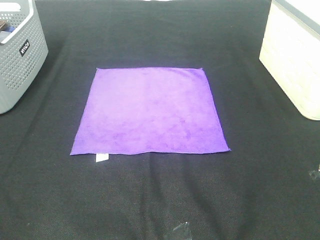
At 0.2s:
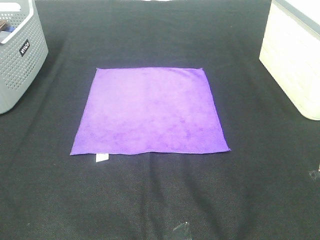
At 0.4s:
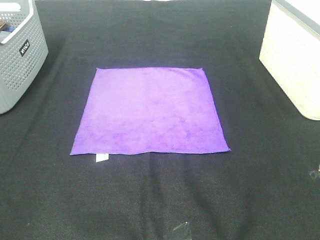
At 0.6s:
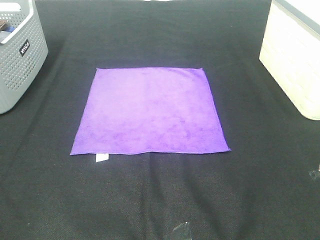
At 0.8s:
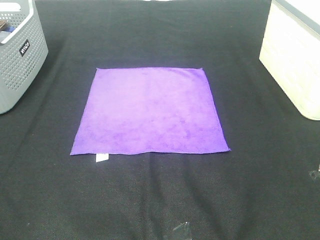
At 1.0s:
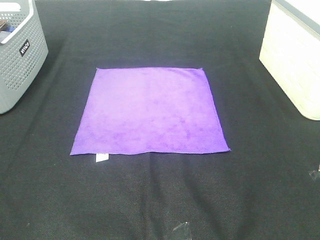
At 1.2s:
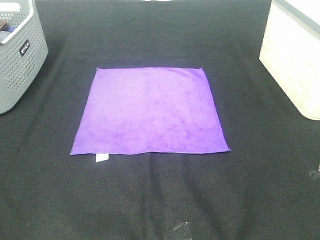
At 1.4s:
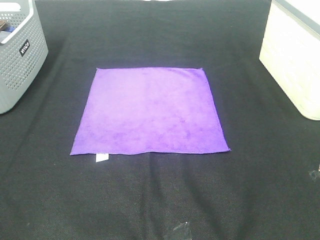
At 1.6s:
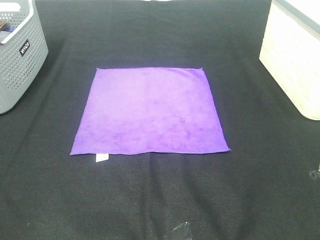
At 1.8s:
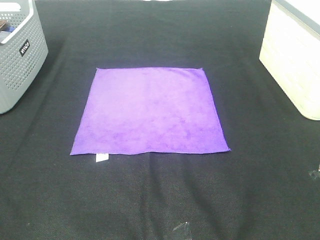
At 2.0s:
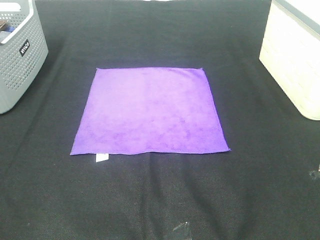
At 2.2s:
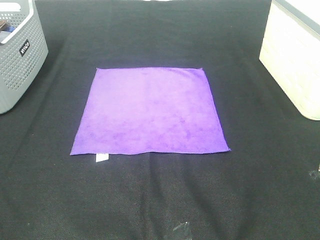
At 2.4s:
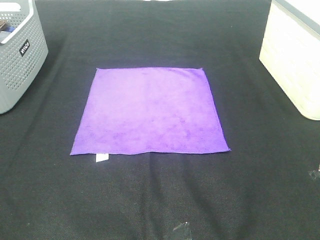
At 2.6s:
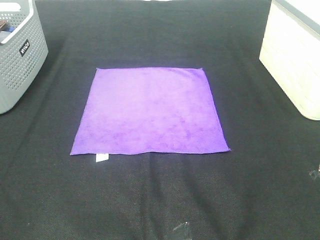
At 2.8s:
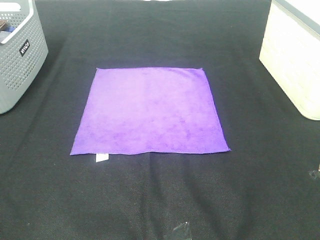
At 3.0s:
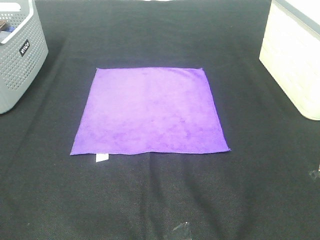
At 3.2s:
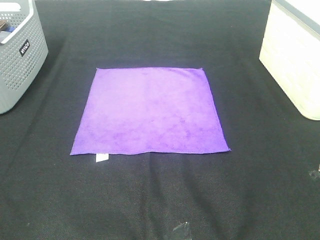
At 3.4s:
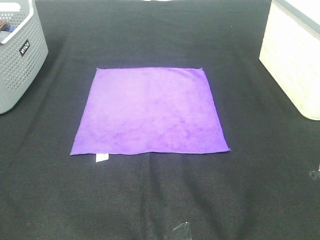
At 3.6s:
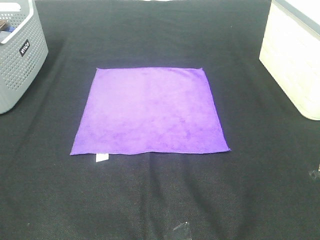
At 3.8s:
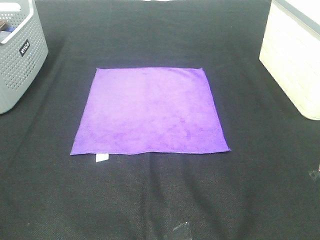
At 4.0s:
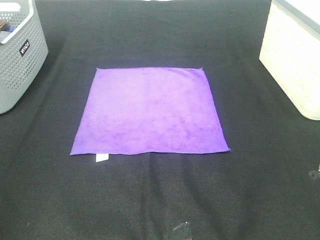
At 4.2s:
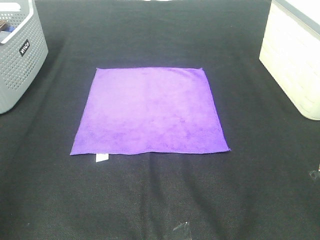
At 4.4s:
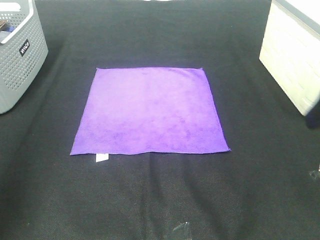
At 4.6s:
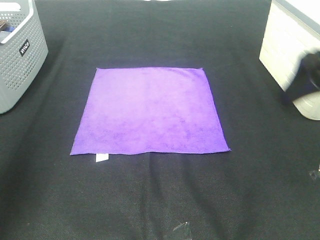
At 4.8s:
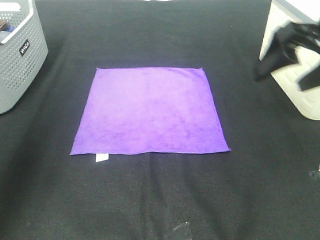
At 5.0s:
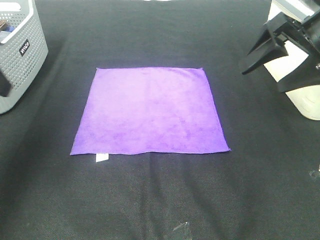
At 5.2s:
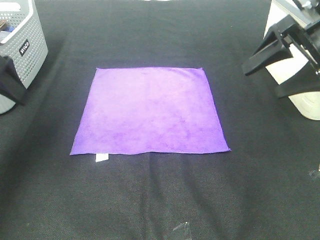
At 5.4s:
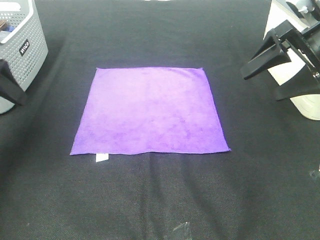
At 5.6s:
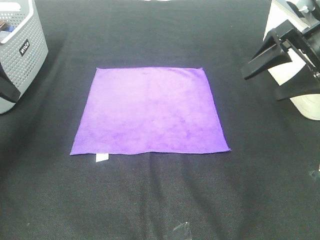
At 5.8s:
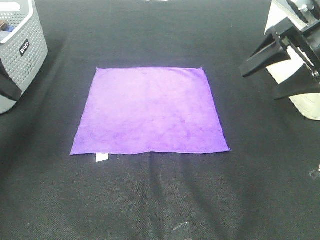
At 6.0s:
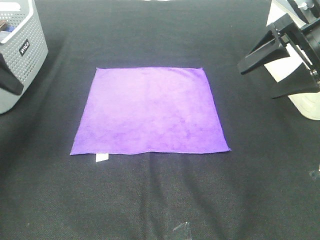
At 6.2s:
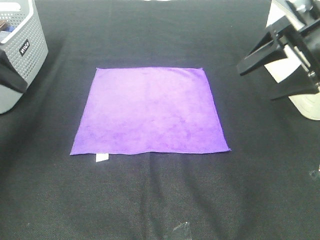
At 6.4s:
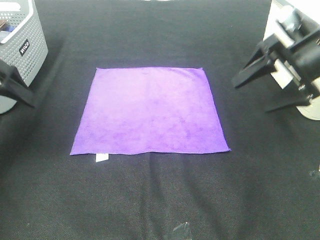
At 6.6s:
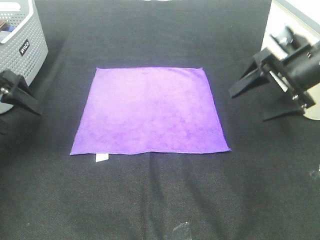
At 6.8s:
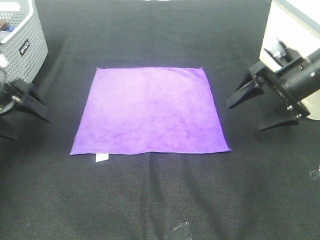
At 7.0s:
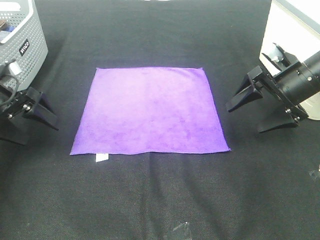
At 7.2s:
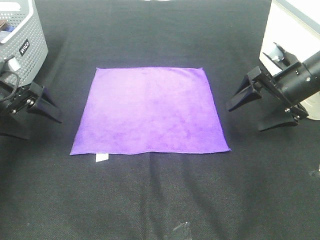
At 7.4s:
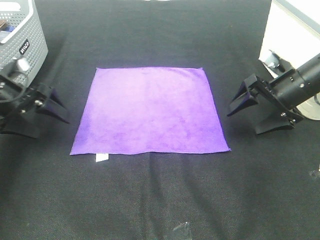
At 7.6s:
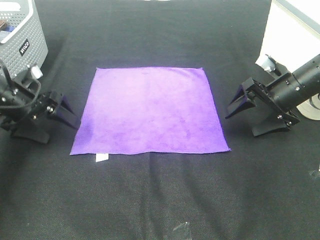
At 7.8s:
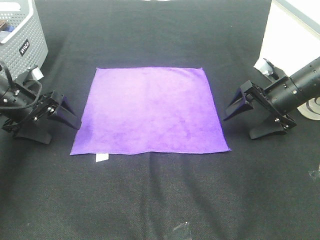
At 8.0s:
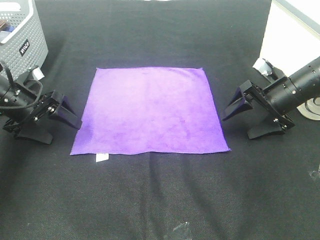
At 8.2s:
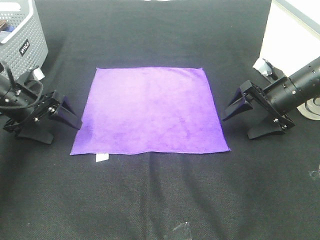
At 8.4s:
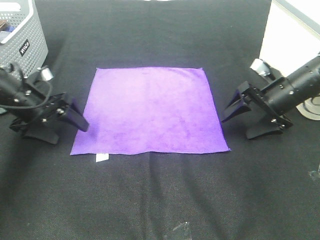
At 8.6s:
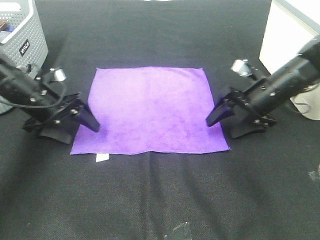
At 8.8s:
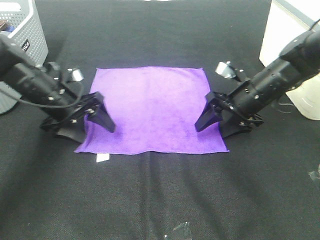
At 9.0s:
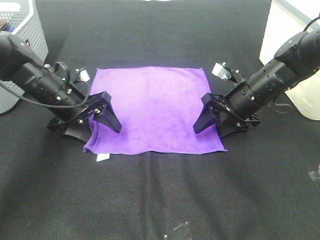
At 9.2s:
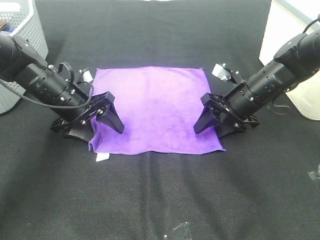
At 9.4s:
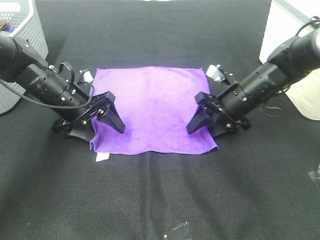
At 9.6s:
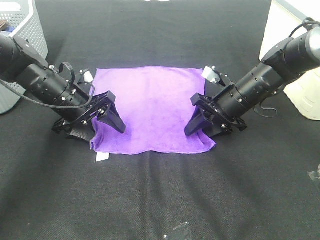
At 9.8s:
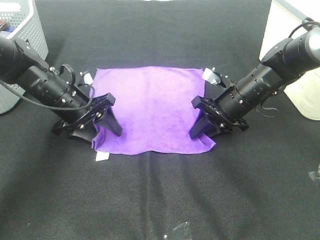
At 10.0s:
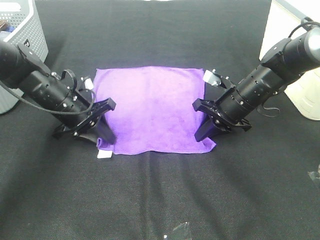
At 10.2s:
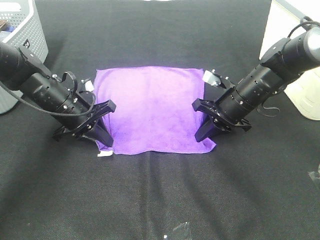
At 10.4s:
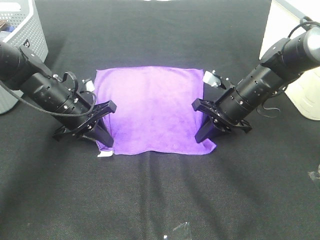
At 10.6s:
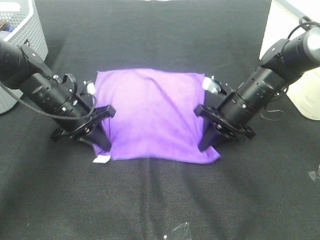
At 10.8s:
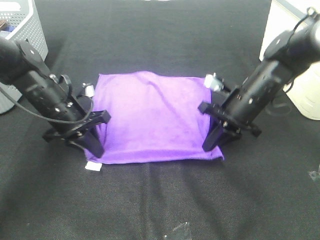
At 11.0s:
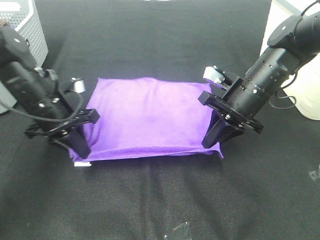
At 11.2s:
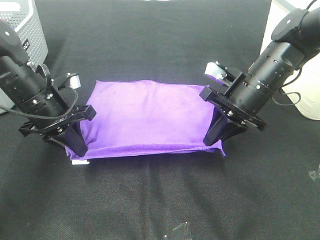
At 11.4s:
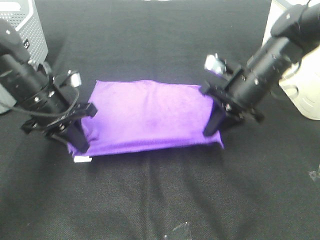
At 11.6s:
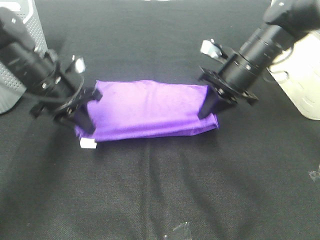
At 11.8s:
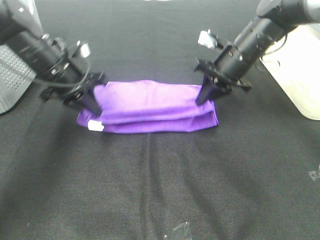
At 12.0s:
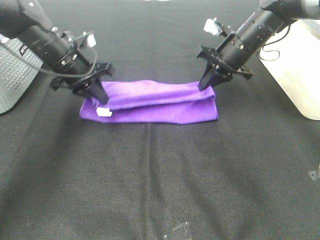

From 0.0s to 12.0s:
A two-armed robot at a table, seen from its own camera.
Task of the whole recording: Fold towels.
Step, from 0.0s to 10.2s: Left hand: grab the bottom left corner of purple towel.
Step, from 0.0s to 10.2s: Right hand: grab the bottom right corner of purple towel.
From 0.0s to 3.0s: Neither gripper changes place.
From 3.0s to 4.4s: The two grippers go some 20 cm forward.
From 4.4s to 6.0s: The right gripper heads forward, covering roughly 10 cm; the left gripper goes roughly 15 cm forward and downward.
From 6.0s to 7.6s: The two grippers go some 15 cm downward.
From 7.6s to 9.0s: The right gripper is displaced to the left by approximately 10 cm. The left gripper moves to the right, about 10 cm.
From 9.0s to 10.4s: The left gripper closes up; the right gripper closes.
From 10.4s to 12.0s: The right gripper is displaced forward and upward by some 15 cm. The left gripper goes some 10 cm upward and forward.

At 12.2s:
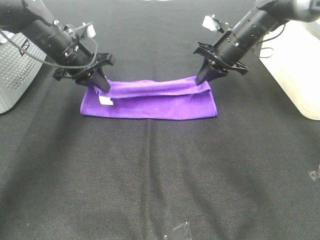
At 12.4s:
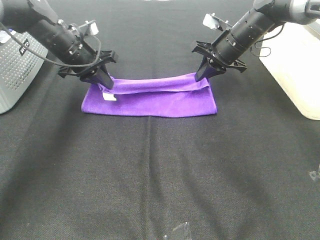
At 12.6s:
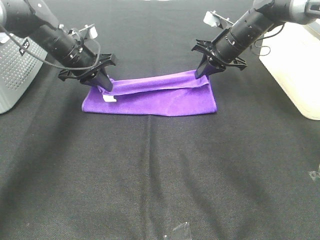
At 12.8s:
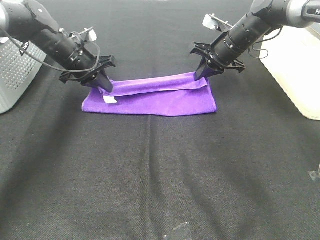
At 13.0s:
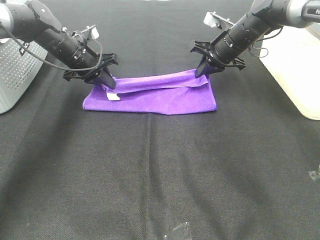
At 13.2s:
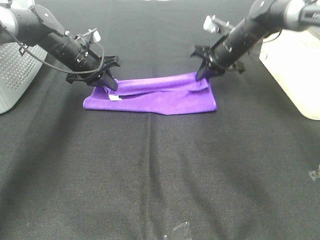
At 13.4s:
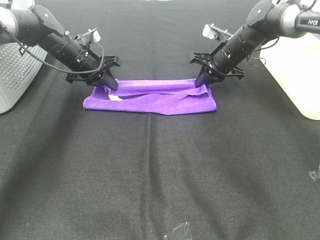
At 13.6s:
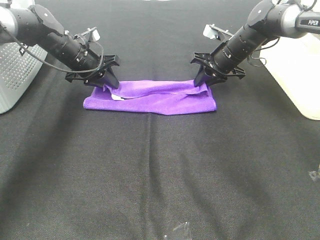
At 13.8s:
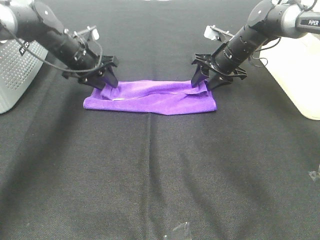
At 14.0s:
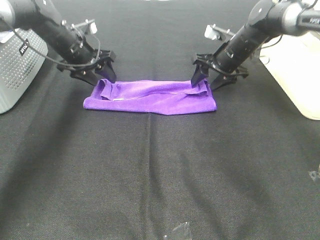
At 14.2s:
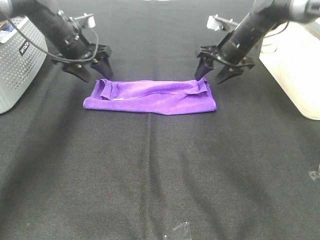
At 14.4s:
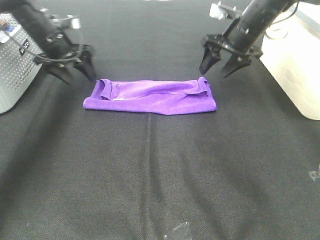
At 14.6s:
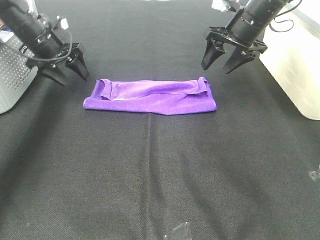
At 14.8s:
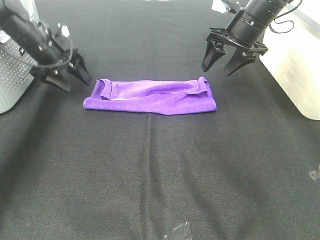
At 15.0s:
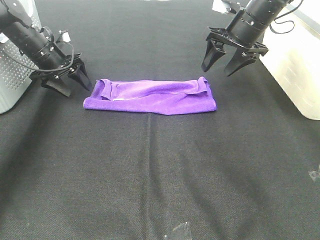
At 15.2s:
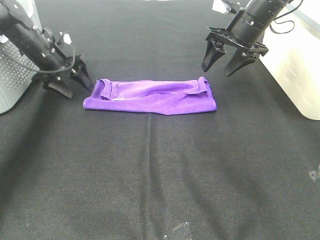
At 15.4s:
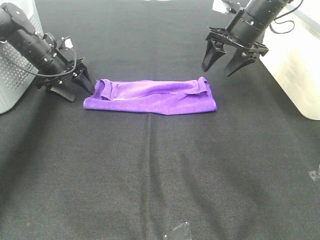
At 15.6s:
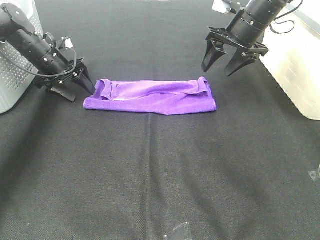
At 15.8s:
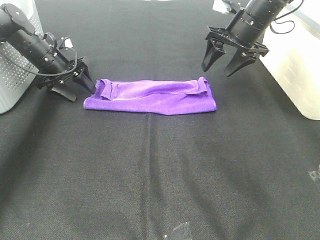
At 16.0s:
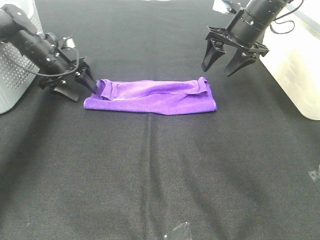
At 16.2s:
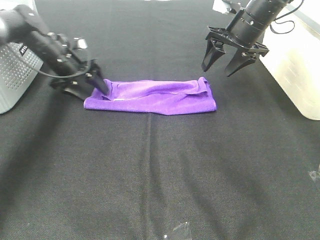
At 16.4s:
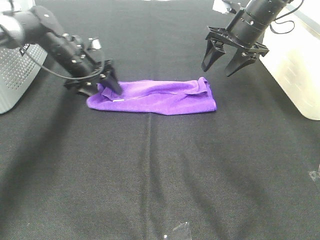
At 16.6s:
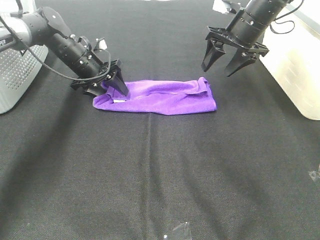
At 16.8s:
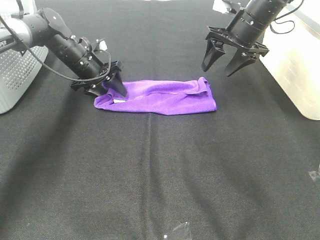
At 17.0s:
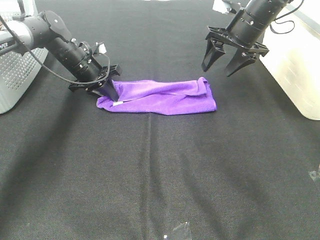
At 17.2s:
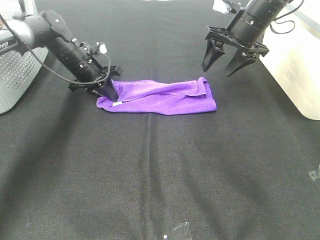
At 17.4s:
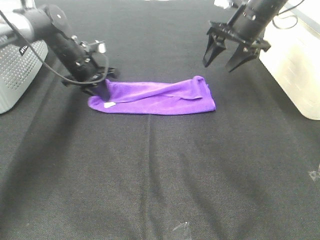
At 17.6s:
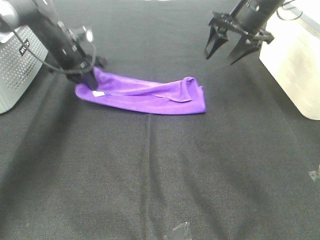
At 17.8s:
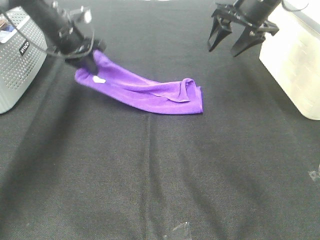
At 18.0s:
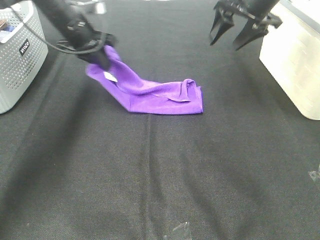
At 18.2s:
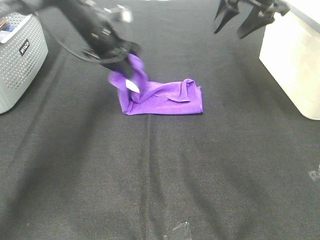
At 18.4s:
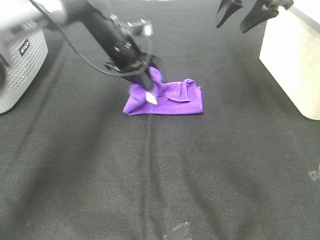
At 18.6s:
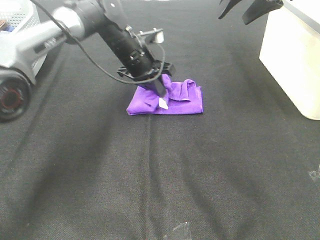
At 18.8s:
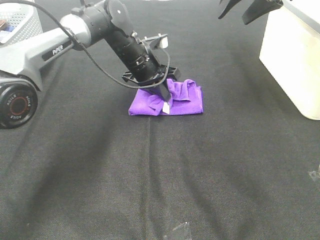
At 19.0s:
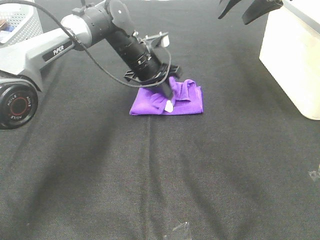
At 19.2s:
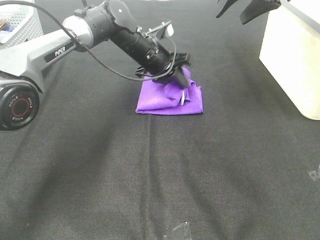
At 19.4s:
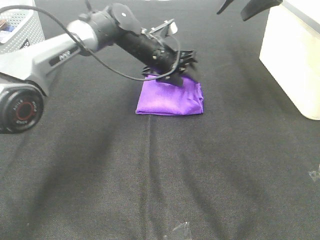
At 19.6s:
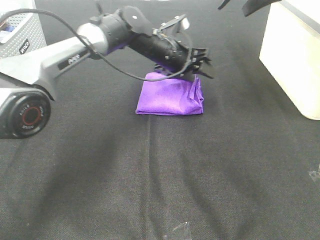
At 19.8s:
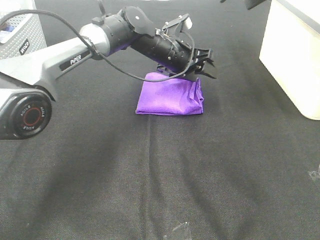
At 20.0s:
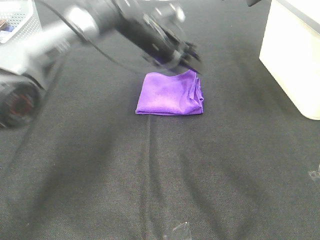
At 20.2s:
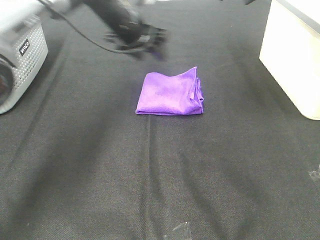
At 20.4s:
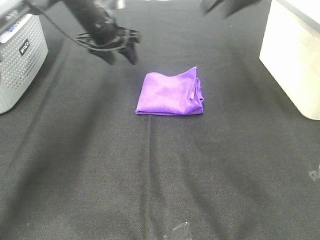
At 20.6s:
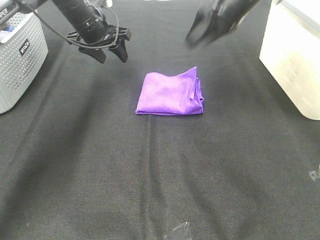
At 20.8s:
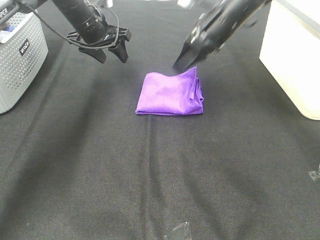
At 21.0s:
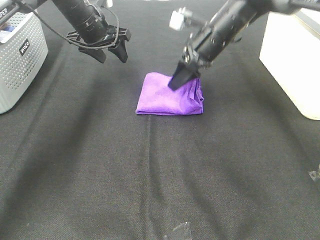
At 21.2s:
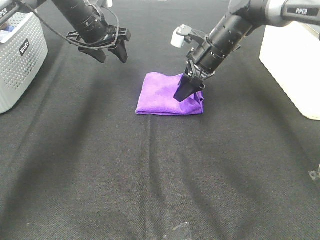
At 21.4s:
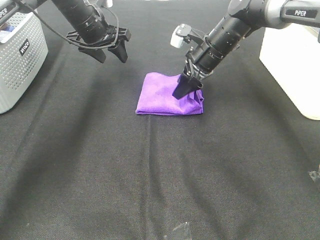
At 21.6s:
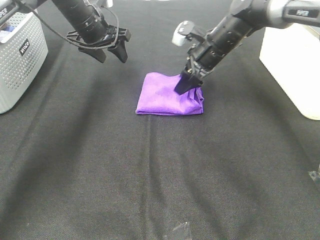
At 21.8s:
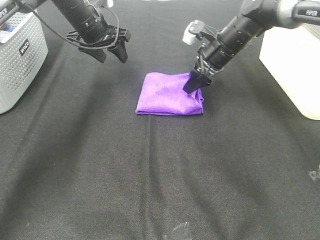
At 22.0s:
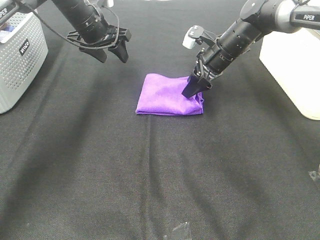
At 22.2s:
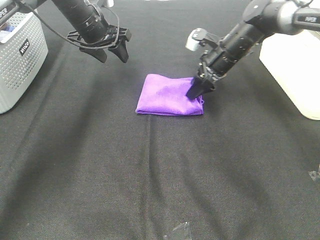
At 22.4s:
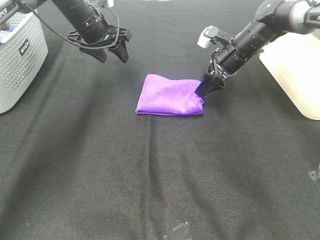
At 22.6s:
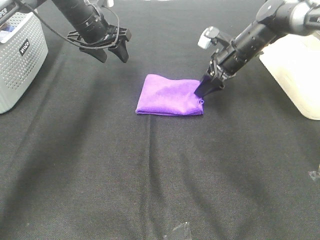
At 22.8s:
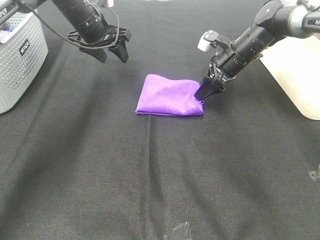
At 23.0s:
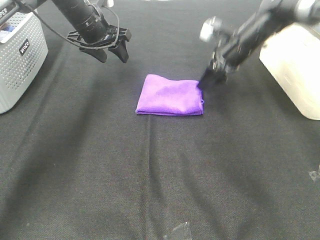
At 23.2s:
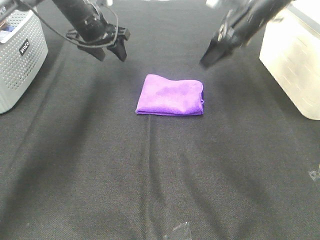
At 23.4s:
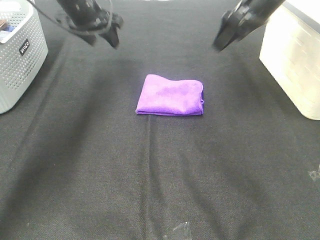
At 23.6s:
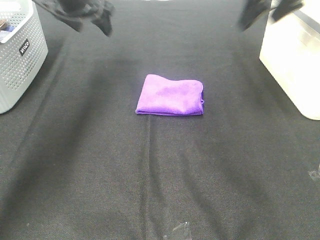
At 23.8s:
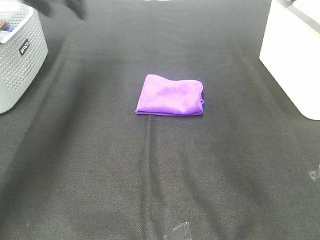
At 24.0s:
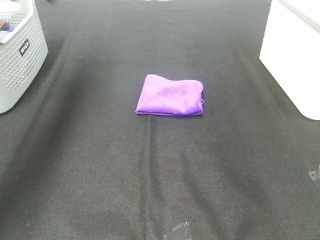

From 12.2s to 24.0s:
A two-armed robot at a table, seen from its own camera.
Task of the whole recording: Fold towels.
Step, from 13.8s to 19.0s: Left hand: fold the purple towel from left to right.
Step, from 19.2s to 21.0s: Right hand: adjust the purple towel.
From 12.2s to 13.6s: The left gripper changes place by about 5 cm.
From 13.6s to 15.2s: The left gripper goes some 5 cm to the left, and opens up. The right gripper heads upward, covering about 10 cm, and opens.
From 15.2s to 16.6s: The left gripper moves to the right, some 10 cm.
From 16.6s to 18.2s: The right gripper heads upward, covering approximately 10 cm. Meanwhile the left gripper moves upward and to the right, about 10 cm, and closes.
From 18.2s to 19.6s: The left gripper moves to the right, some 10 cm, and opens up.
From 19.6s to 21.0s: The left gripper is displaced to the left by some 15 cm; the right gripper shifts roughly 20 cm downward and to the left.
From 21.0s to 22.6s: The right gripper moves to the right, some 5 cm.
From 22.6s to 24.0s: The right gripper moves upward, backward and to the right, approximately 35 cm. The left gripper moves upward, to the left and backward, approximately 20 cm.
